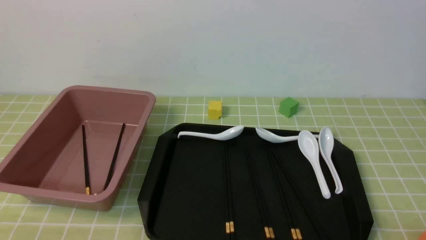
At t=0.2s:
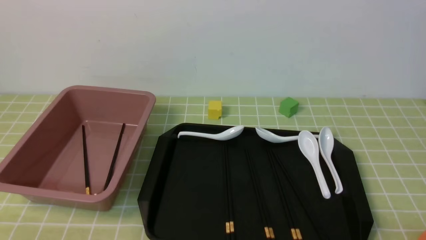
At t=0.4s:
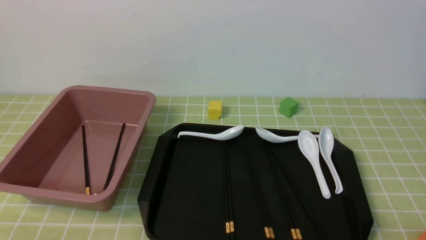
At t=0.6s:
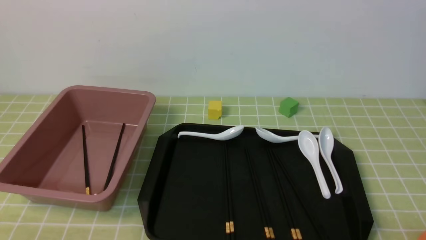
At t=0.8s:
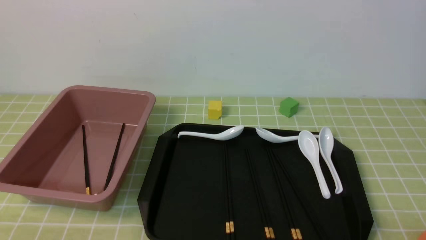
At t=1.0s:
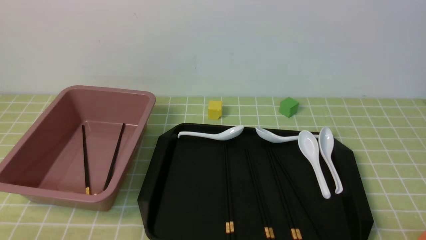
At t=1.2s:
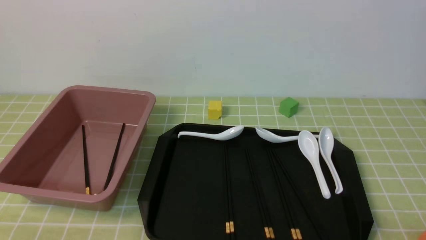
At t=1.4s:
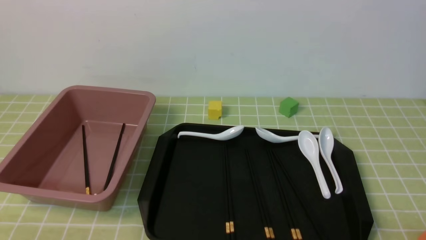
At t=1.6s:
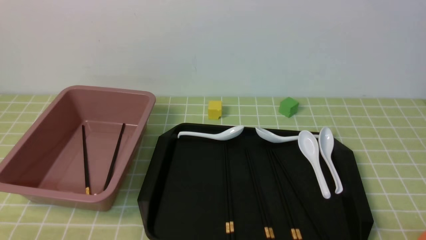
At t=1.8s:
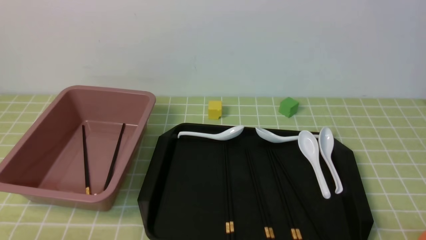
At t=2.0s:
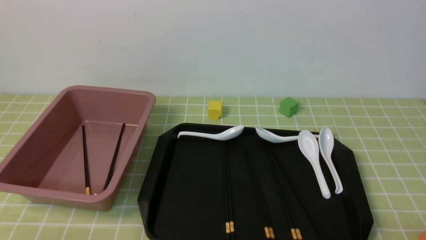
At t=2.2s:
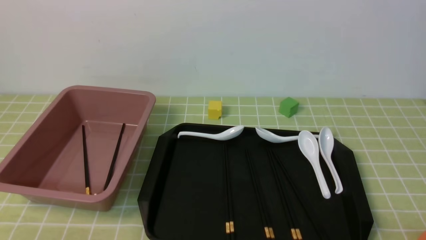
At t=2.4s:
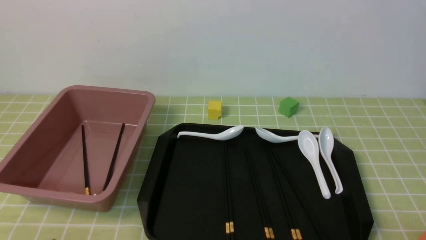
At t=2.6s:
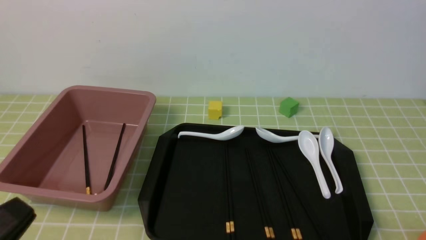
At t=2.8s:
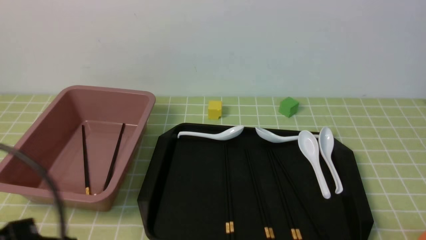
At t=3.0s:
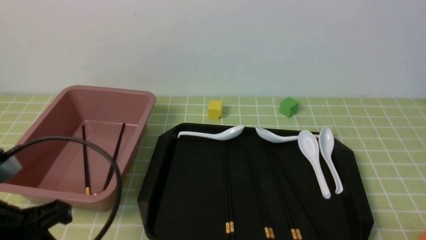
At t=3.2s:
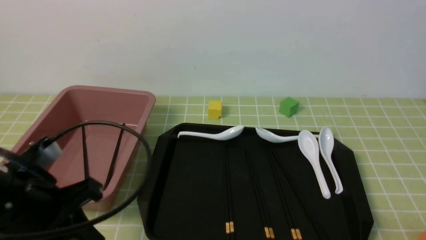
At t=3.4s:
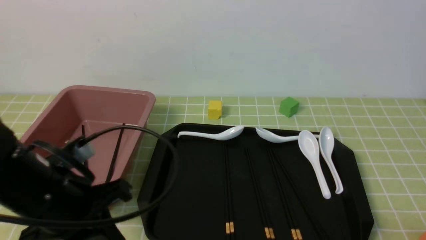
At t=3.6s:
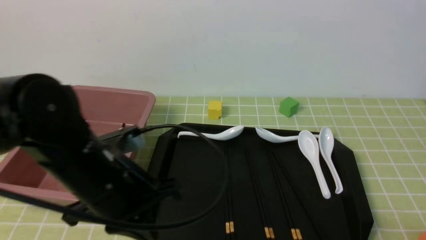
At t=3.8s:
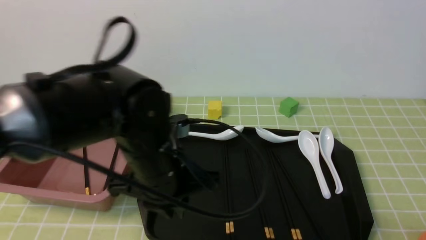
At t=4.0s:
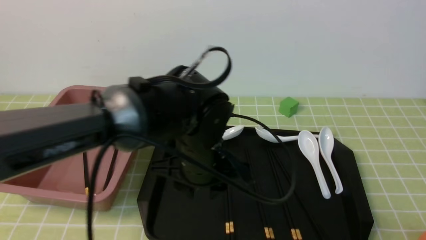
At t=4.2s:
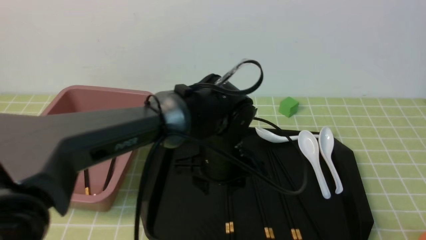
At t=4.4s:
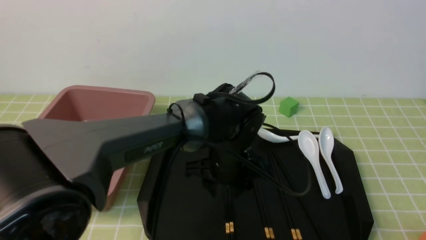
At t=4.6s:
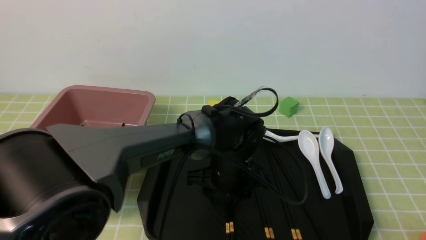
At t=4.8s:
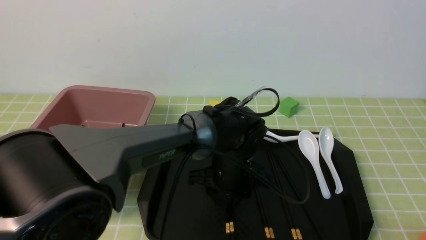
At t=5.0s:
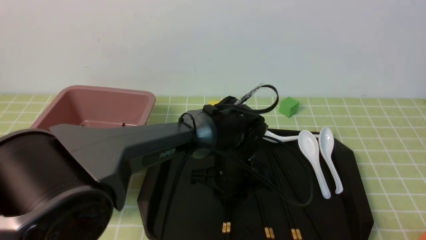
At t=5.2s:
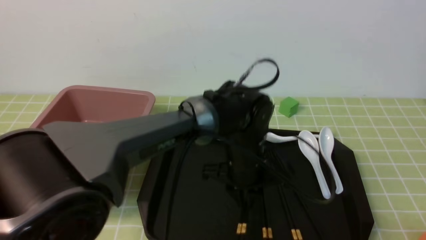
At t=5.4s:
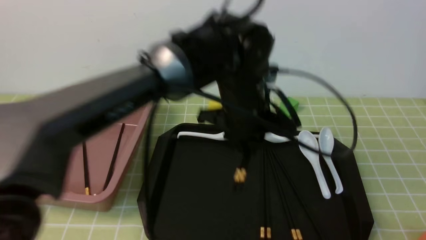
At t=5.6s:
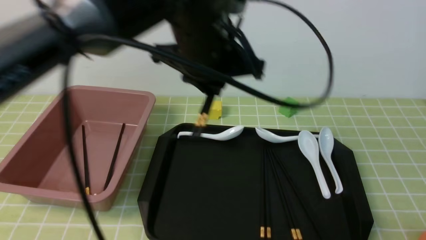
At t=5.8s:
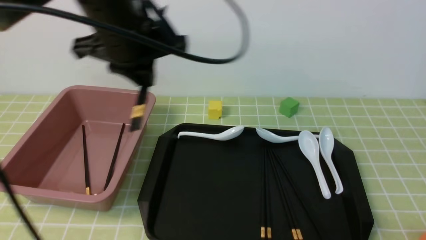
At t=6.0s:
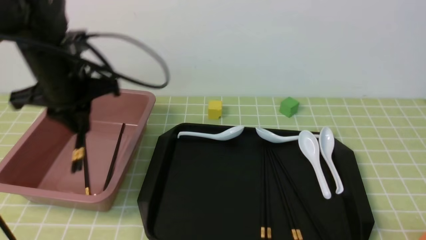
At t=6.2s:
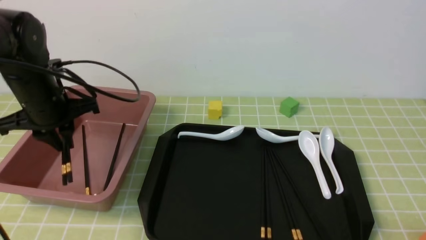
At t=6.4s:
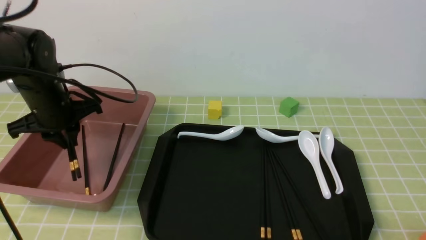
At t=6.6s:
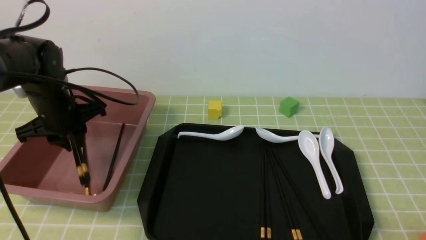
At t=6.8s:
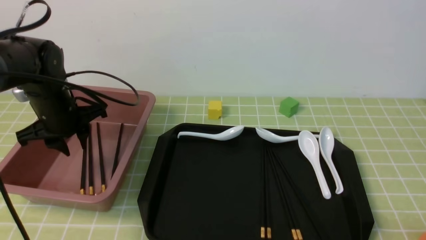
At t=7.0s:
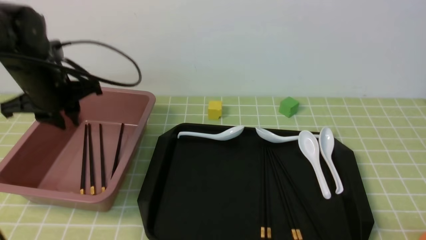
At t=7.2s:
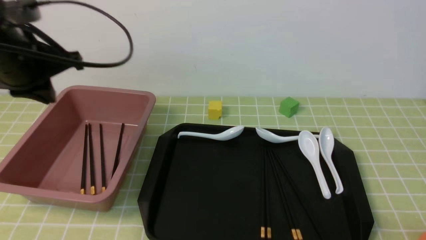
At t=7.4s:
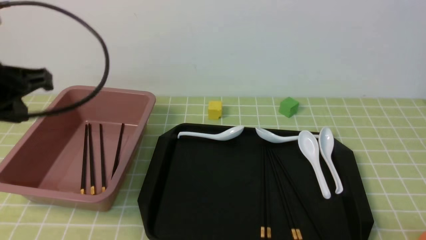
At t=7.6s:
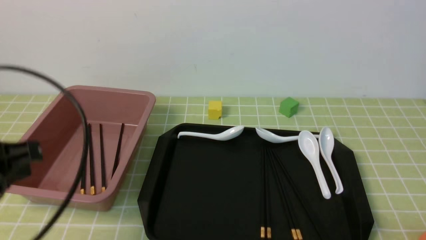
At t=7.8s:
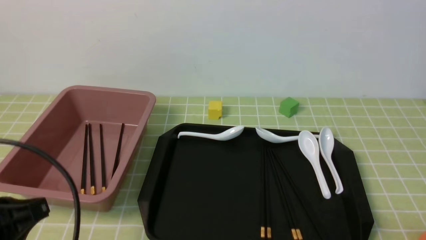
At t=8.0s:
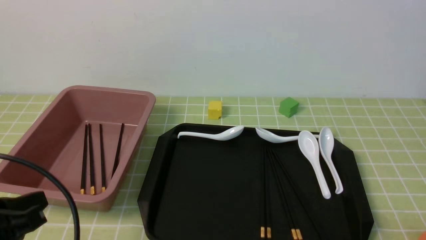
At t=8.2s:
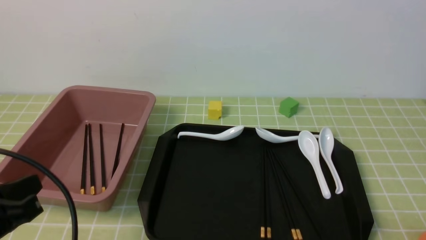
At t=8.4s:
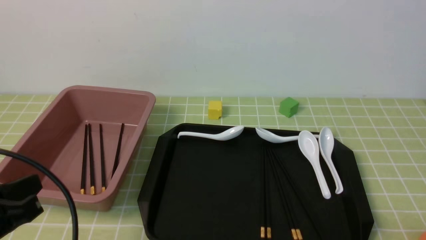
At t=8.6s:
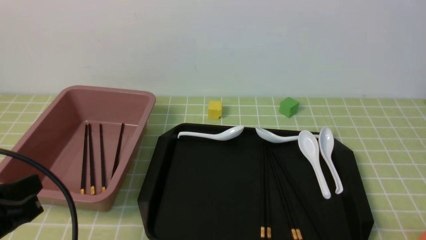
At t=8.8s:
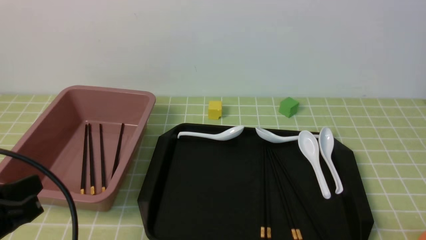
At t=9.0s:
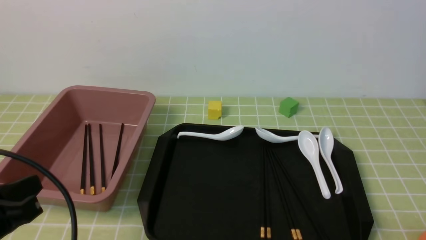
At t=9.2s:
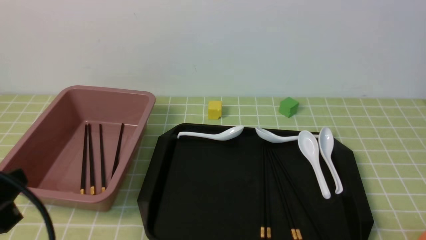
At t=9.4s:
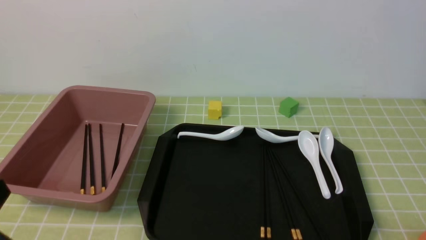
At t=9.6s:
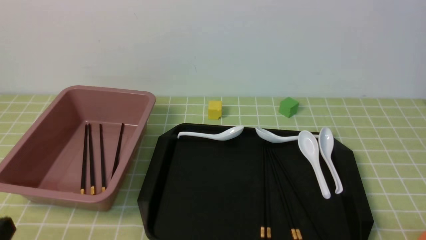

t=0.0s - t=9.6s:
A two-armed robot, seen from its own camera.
Step, t=0.0s - t=5.4s: use the left arm to grab a pair of chopsticks.
Step, t=5.6s - t=7.0s: use the left arm to put the chopsticks into the lunch box.
t=1.6s - t=3.2s: The left gripper travels forward and upward by some 15 cm.
t=3.2s - t=4.8s: The left gripper is displaced to the right, forward and downward by about 35 cm, and opens.
t=4.8s - t=6.4s: The left gripper heads to the left, covering roughly 30 cm, and closes.
t=6.4s - t=8.0s: The left gripper goes roughly 25 cm backward.
t=8.0s - t=9.6s: The left gripper moves backward, some 5 cm.

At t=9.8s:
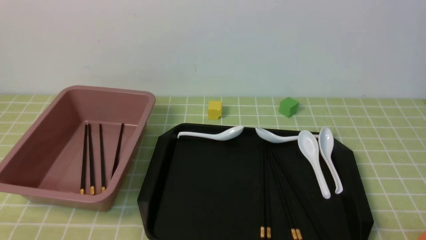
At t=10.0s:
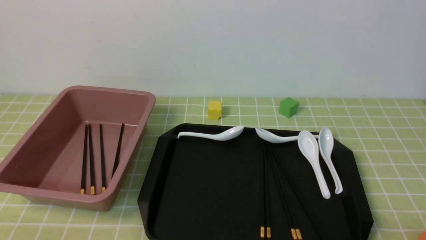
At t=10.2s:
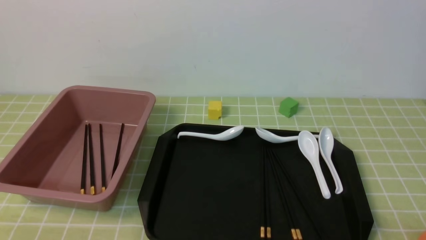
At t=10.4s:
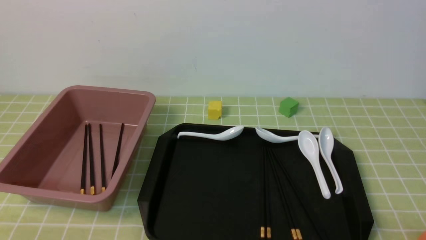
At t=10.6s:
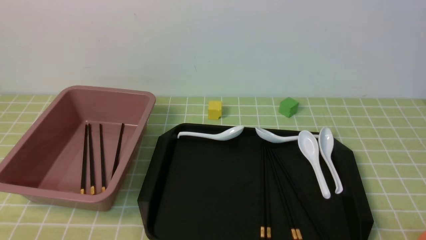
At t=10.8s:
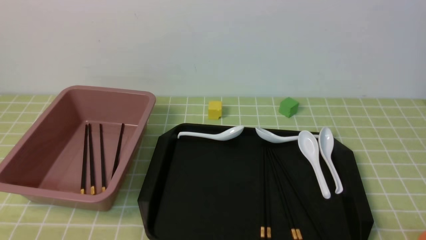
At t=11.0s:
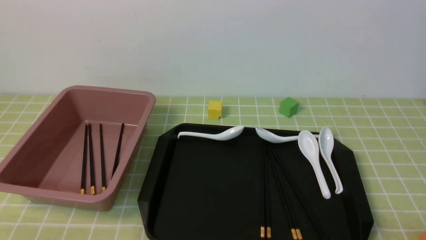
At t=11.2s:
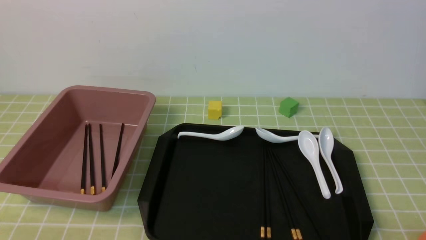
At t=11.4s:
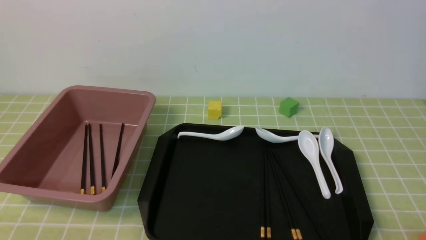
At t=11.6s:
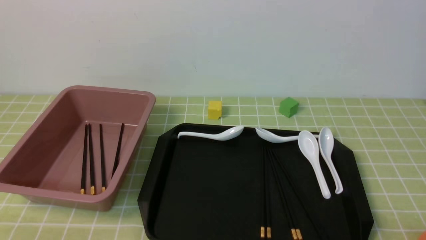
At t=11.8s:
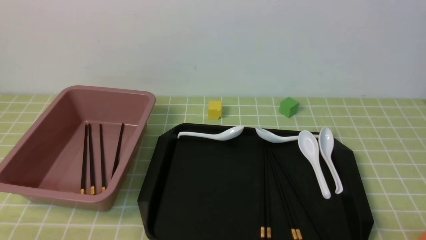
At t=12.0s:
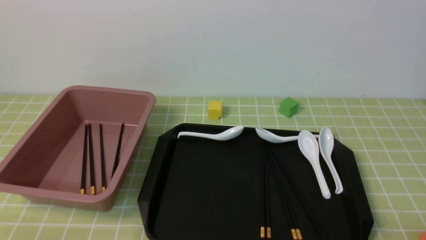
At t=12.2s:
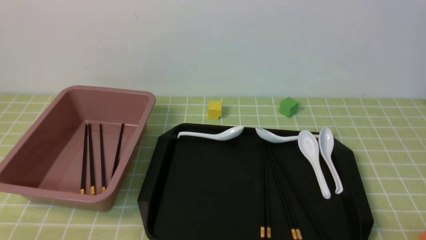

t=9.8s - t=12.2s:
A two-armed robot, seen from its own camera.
t=11.0s - t=12.2s: The two grippers keep their place.

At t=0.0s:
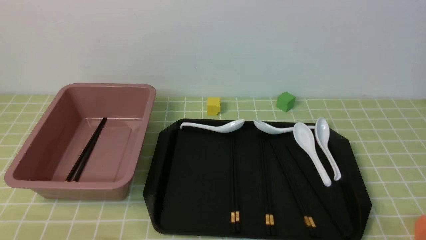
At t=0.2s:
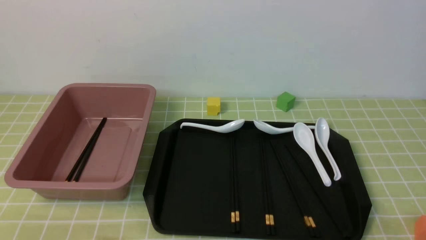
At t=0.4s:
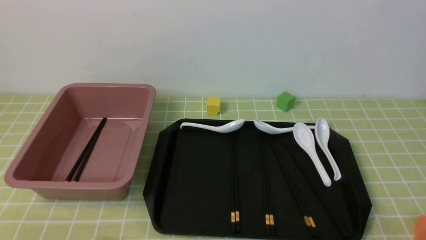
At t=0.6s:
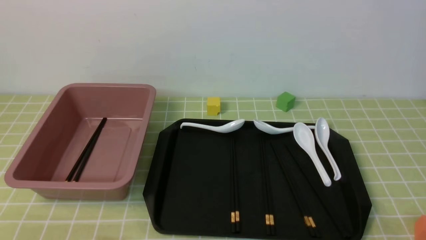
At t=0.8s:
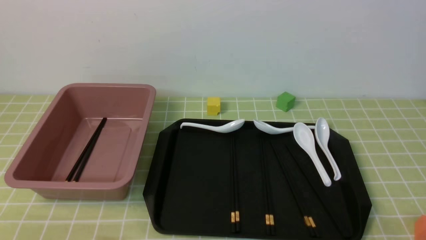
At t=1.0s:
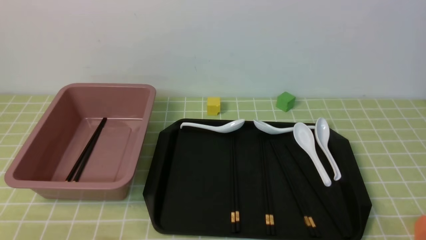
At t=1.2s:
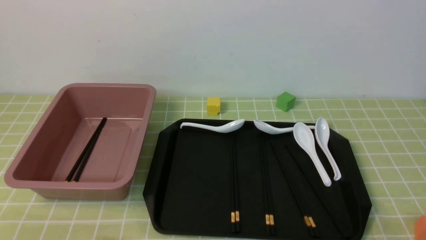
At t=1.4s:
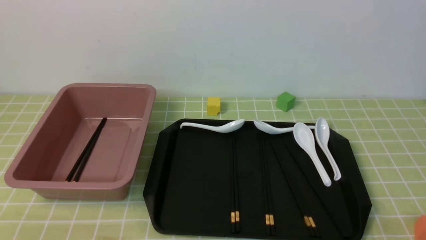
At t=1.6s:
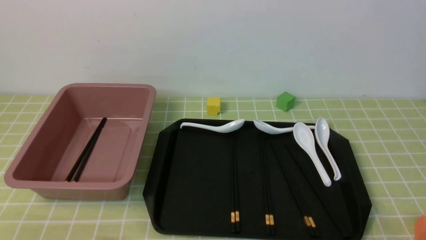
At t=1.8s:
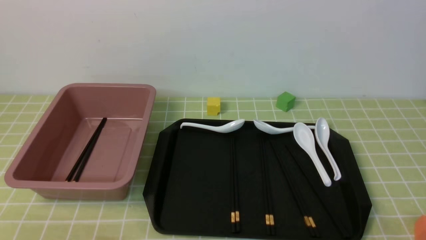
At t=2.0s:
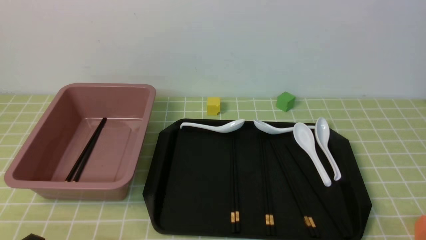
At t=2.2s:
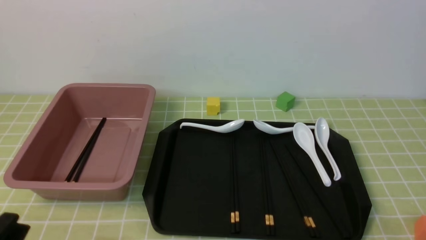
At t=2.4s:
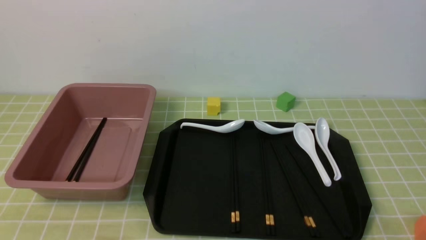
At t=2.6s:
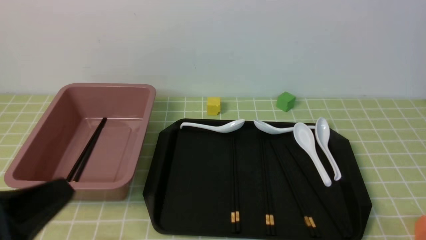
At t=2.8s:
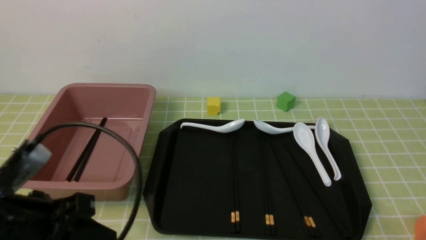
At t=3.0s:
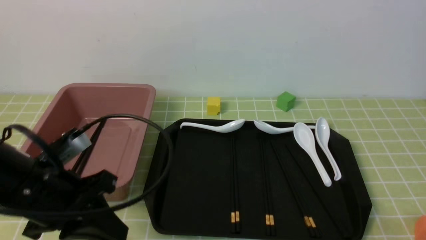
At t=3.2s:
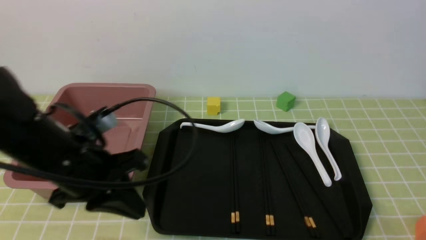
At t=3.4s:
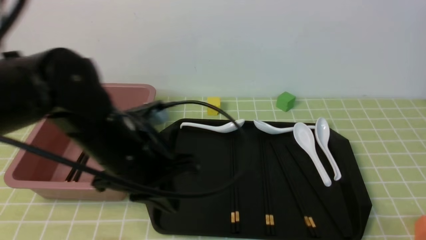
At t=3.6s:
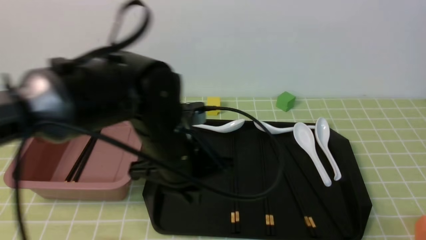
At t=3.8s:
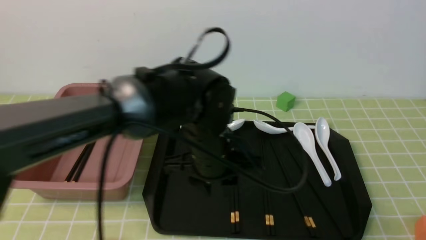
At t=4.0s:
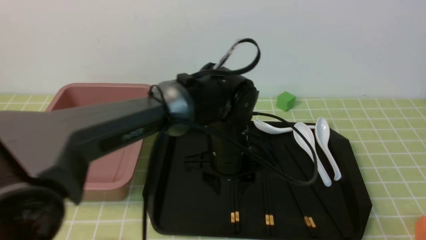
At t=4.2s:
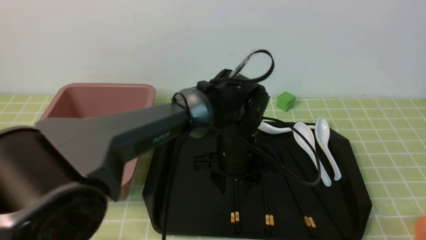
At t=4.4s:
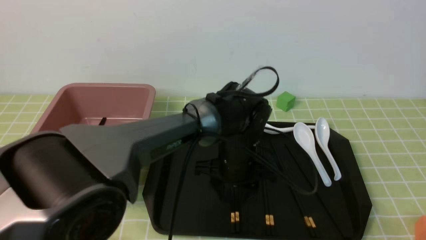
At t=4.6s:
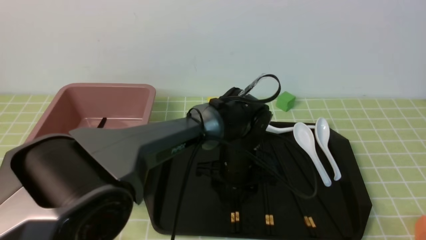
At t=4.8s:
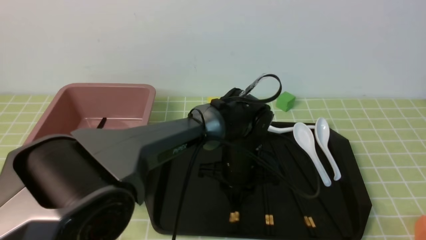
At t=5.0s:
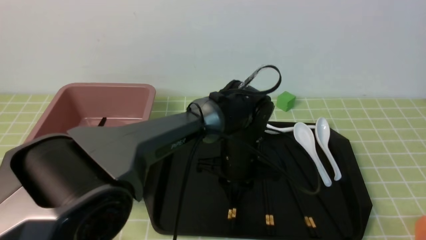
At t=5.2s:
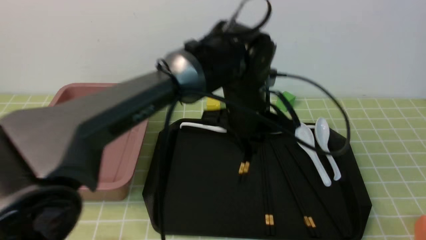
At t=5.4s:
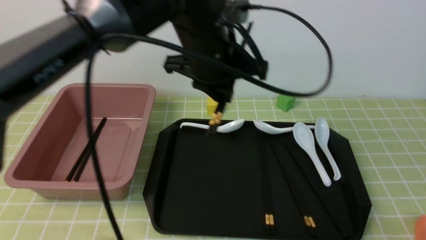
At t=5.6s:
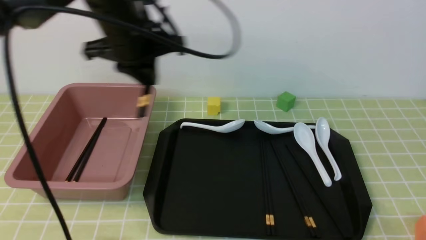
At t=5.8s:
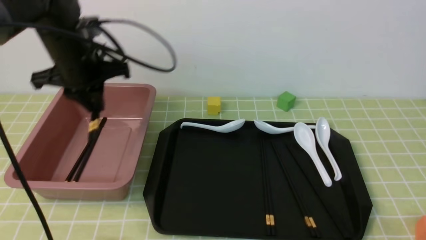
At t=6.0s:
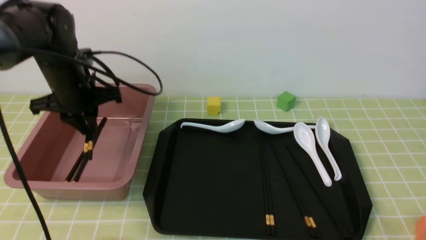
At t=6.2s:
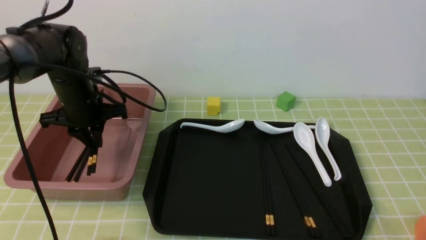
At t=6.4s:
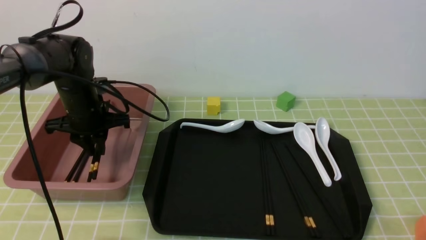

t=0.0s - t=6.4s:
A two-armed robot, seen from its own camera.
Step, t=0.0s - t=5.2s: use the left arm to grab a pair of chopsticks.
t=1.6s - t=3.2s: The left gripper heads forward, to the right and upward, covering roughly 25 cm, and closes up.
t=3.2s - t=4.8s: The left gripper goes roughly 25 cm to the right, forward and downward, and opens up.
t=4.8s - t=6.4s: The left gripper travels to the left by some 30 cm.
